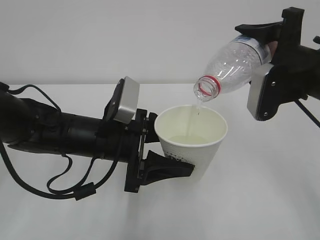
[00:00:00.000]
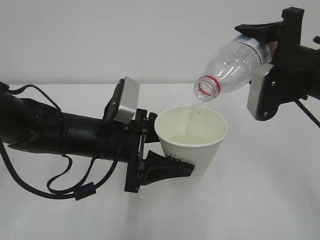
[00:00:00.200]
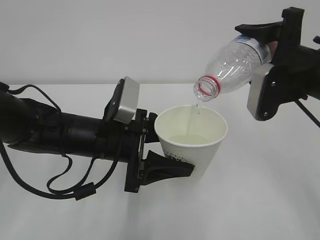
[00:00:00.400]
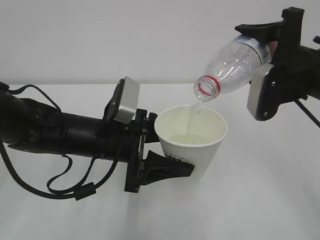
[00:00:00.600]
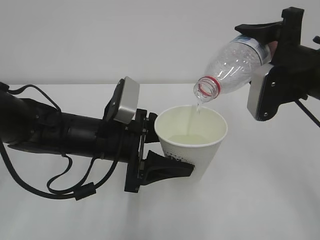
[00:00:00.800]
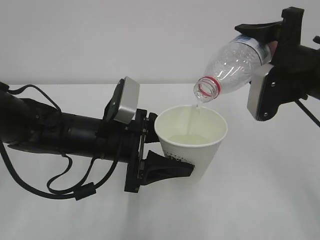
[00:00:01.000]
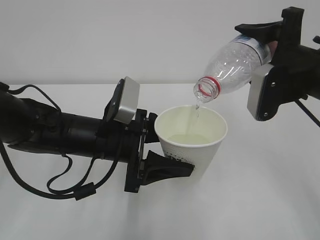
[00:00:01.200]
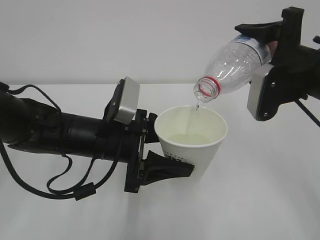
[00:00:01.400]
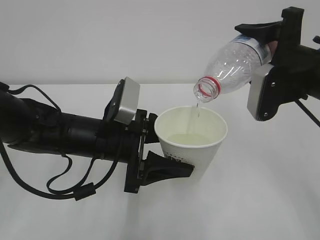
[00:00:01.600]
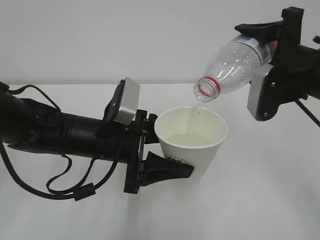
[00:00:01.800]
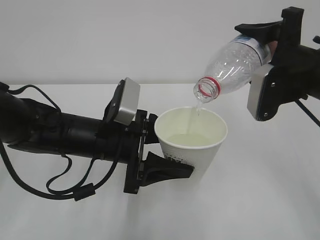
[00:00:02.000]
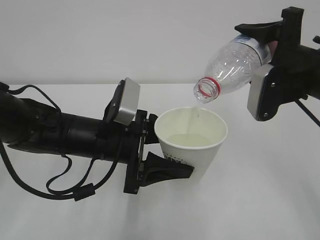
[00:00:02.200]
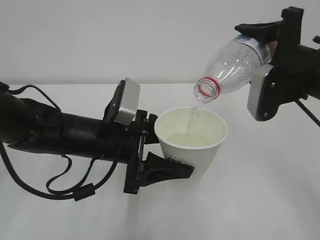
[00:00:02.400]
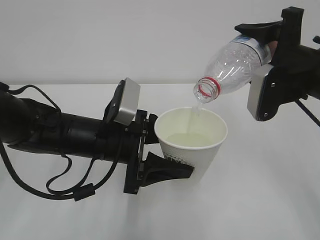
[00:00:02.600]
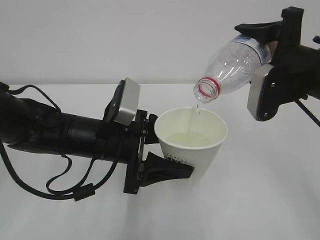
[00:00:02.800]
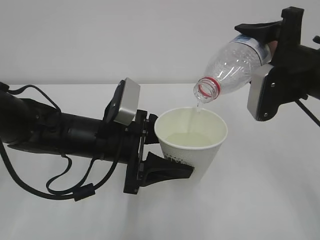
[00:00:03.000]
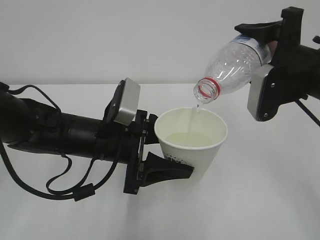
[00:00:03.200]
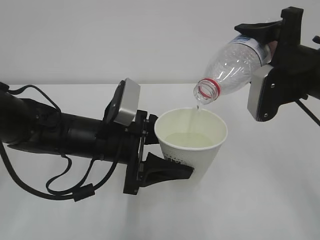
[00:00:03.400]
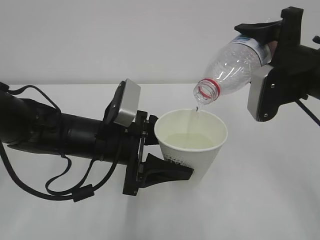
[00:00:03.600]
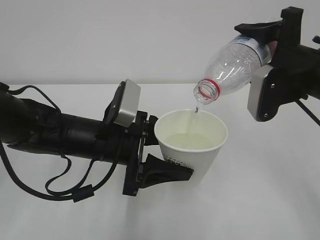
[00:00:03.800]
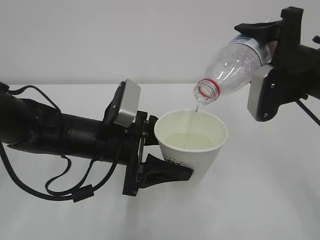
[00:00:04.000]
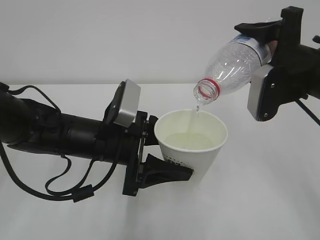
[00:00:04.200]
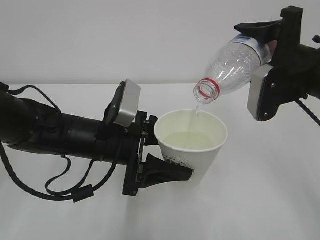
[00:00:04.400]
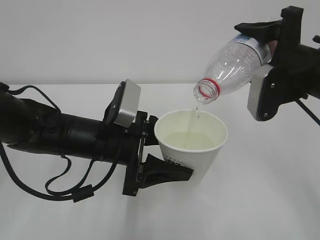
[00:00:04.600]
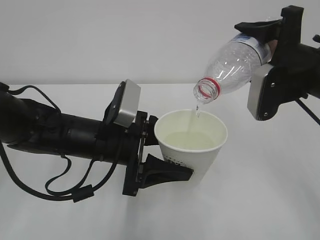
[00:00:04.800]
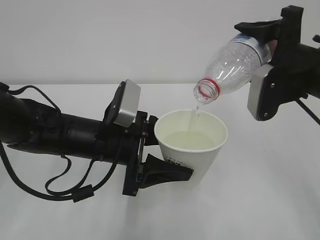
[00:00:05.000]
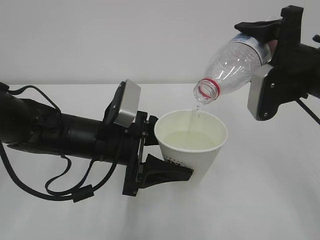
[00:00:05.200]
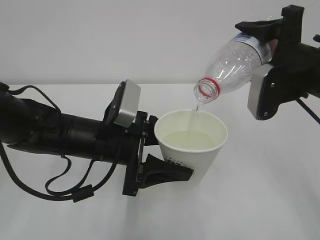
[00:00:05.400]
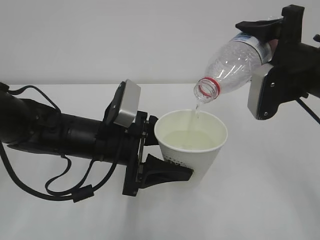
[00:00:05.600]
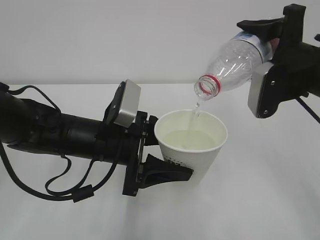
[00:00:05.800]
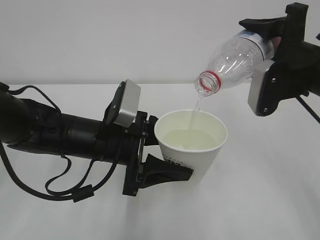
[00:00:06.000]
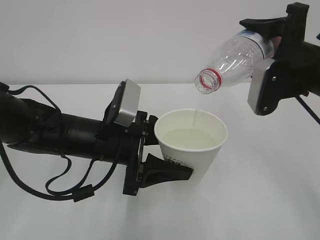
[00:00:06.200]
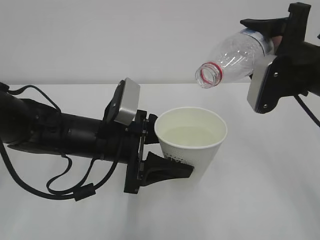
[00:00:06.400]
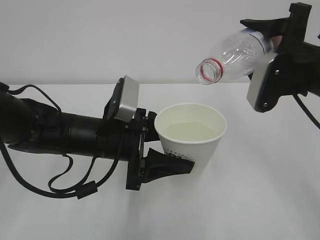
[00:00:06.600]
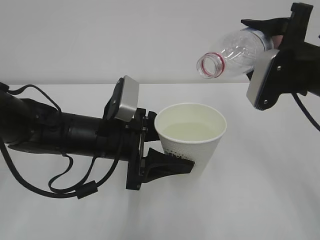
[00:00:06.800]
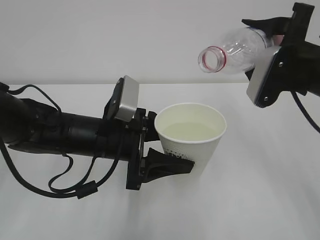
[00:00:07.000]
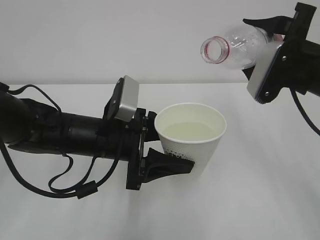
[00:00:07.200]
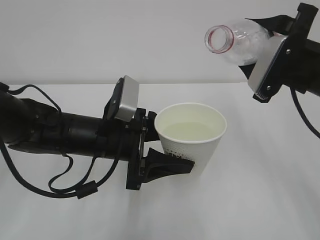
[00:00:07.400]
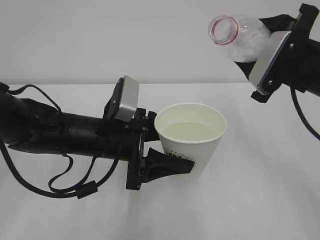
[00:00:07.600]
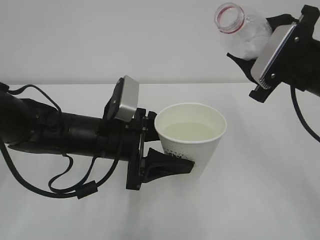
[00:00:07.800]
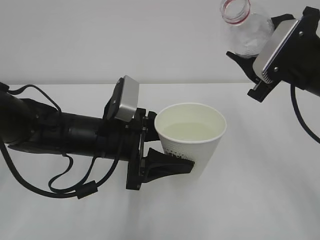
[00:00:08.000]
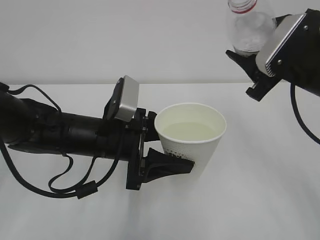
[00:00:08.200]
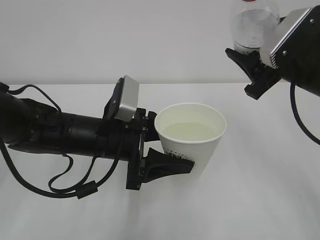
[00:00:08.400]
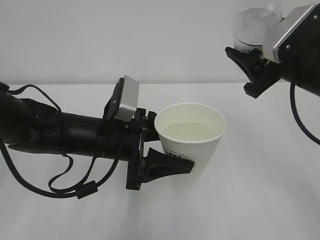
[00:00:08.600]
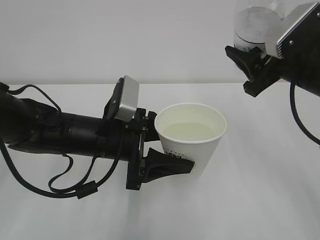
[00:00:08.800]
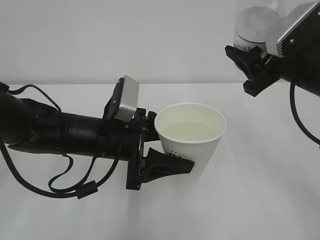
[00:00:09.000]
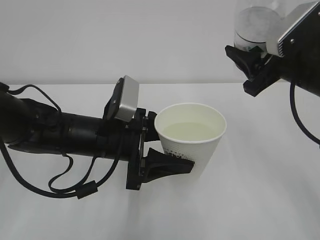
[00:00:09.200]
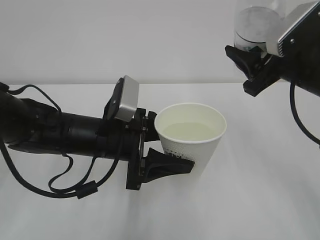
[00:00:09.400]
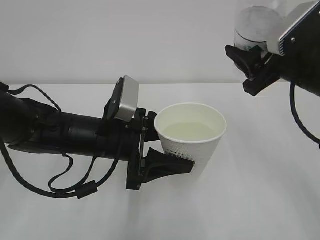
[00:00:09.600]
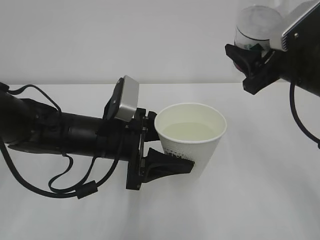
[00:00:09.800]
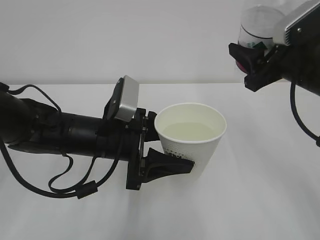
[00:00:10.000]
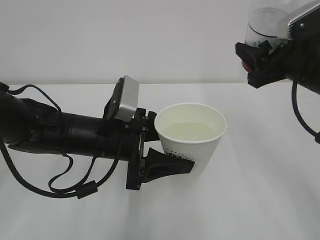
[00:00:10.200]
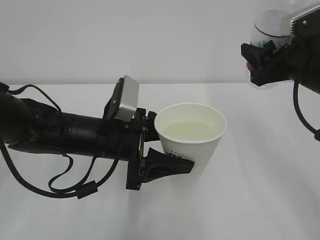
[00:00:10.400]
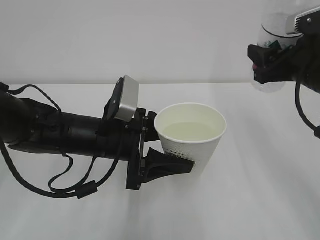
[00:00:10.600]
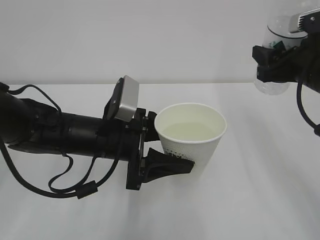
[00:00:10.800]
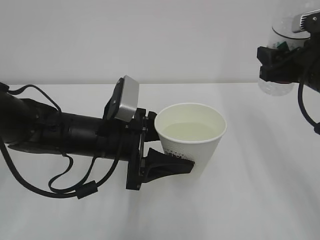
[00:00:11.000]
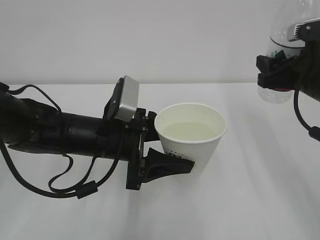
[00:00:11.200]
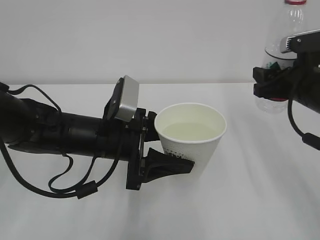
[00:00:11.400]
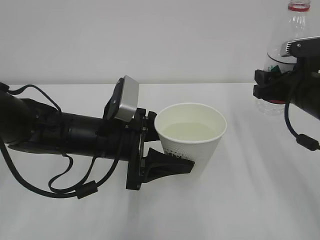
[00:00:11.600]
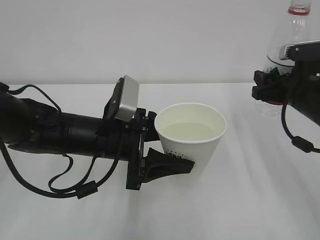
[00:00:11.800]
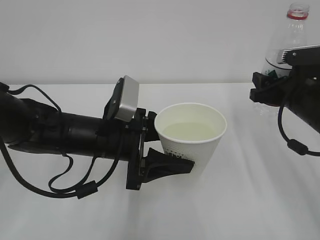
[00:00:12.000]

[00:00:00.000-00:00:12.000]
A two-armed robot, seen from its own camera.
00:00:00.000 to 00:00:06.000: Both grippers stay put.
00:00:10.400 to 00:00:12.000: The right gripper goes roughly 10 cm downward.

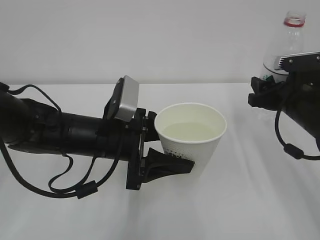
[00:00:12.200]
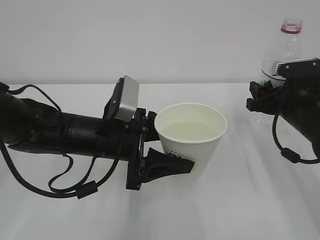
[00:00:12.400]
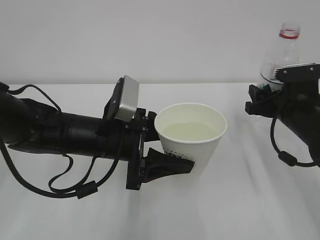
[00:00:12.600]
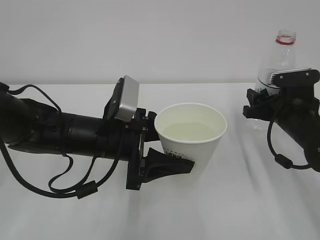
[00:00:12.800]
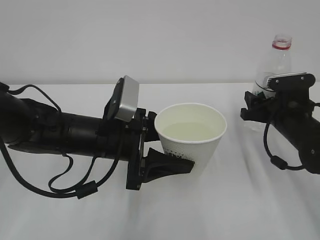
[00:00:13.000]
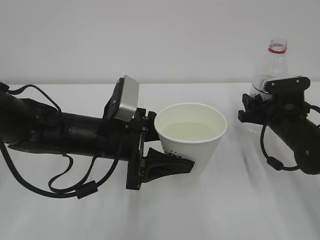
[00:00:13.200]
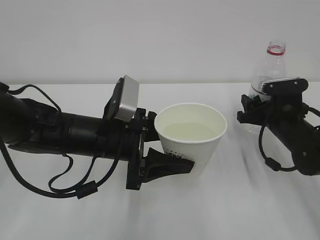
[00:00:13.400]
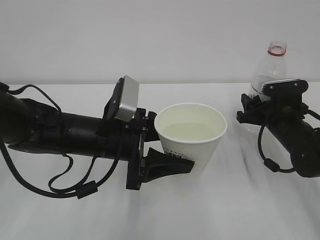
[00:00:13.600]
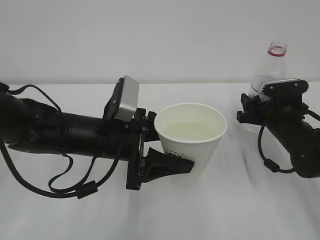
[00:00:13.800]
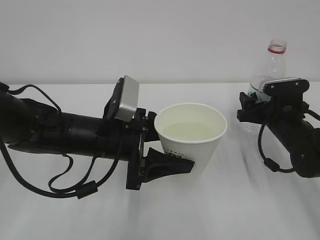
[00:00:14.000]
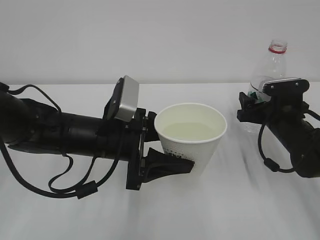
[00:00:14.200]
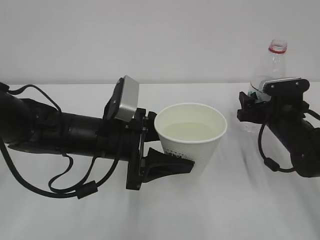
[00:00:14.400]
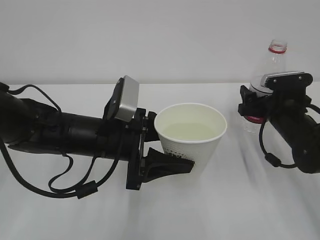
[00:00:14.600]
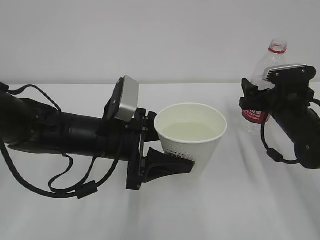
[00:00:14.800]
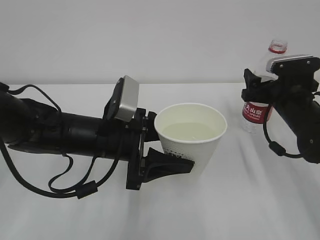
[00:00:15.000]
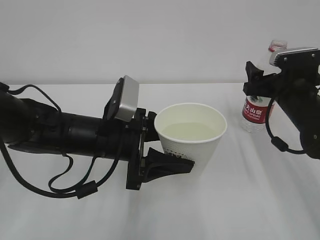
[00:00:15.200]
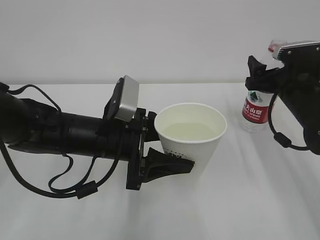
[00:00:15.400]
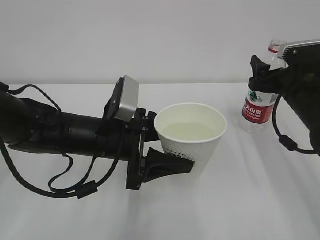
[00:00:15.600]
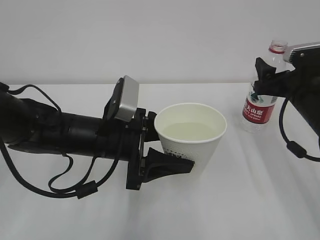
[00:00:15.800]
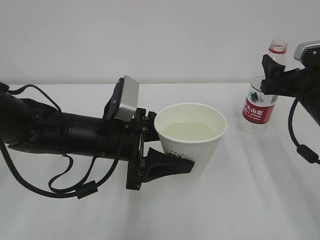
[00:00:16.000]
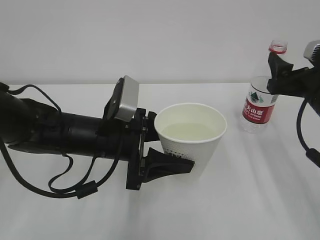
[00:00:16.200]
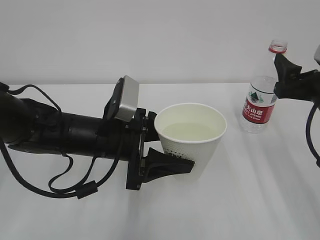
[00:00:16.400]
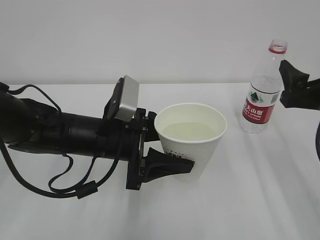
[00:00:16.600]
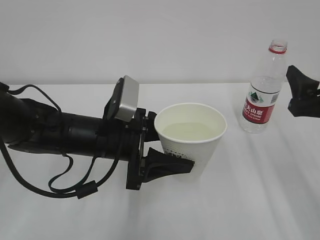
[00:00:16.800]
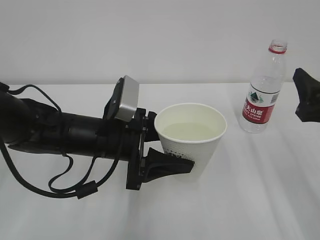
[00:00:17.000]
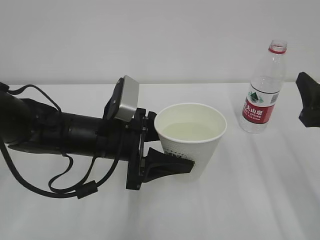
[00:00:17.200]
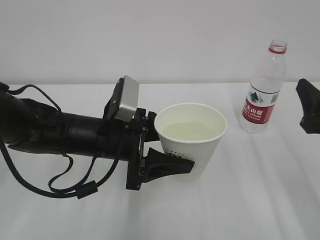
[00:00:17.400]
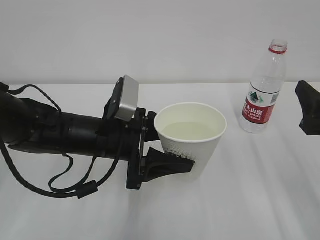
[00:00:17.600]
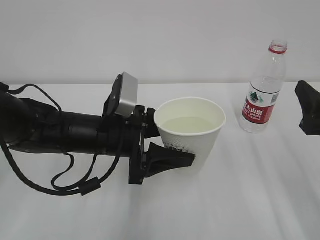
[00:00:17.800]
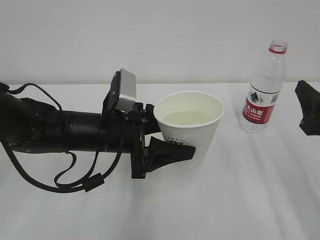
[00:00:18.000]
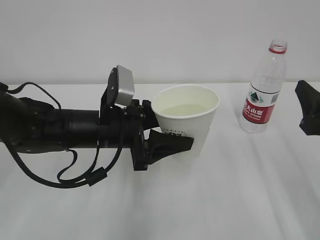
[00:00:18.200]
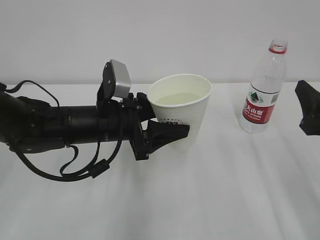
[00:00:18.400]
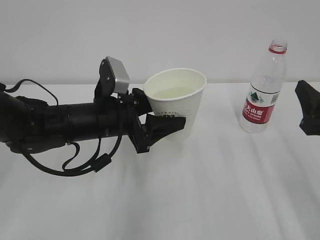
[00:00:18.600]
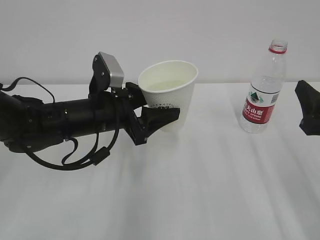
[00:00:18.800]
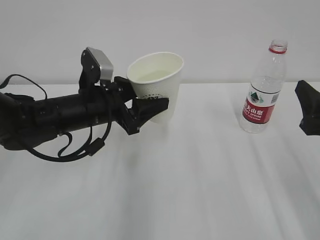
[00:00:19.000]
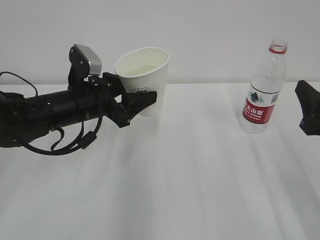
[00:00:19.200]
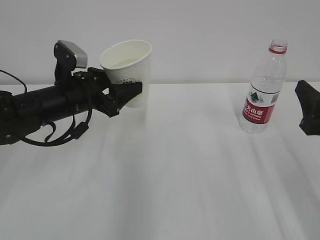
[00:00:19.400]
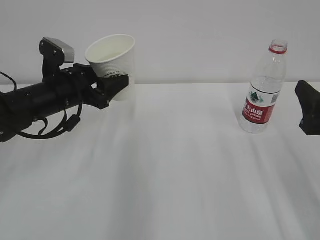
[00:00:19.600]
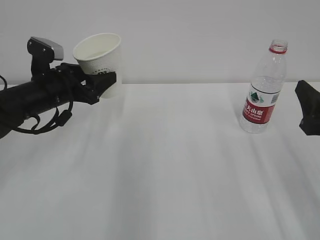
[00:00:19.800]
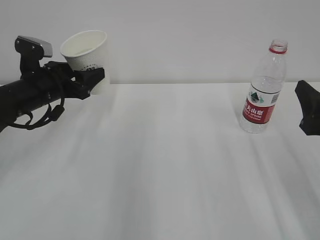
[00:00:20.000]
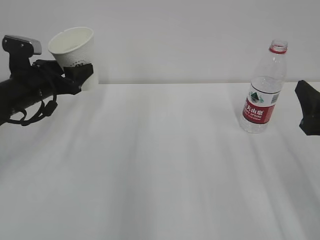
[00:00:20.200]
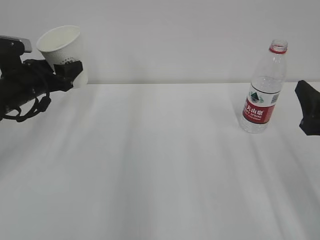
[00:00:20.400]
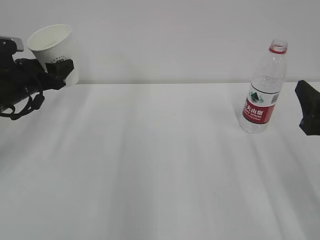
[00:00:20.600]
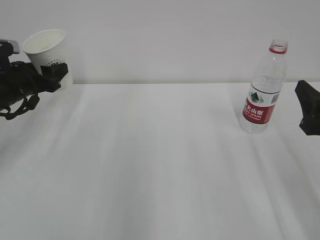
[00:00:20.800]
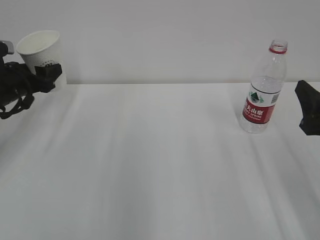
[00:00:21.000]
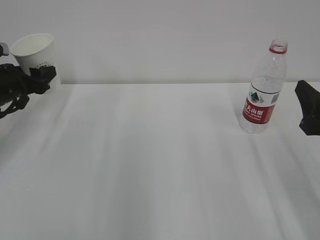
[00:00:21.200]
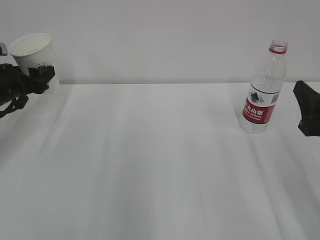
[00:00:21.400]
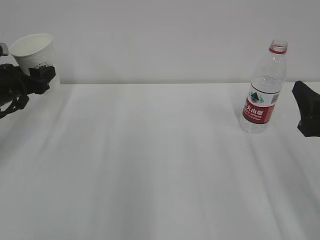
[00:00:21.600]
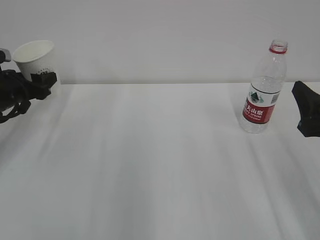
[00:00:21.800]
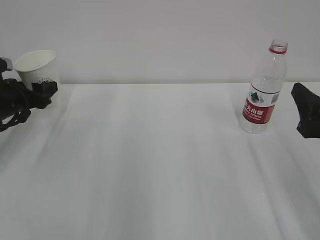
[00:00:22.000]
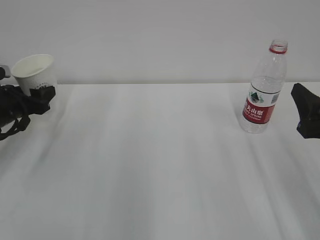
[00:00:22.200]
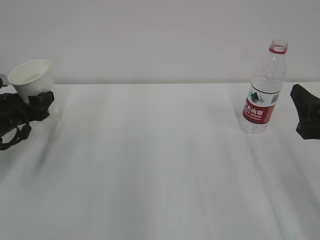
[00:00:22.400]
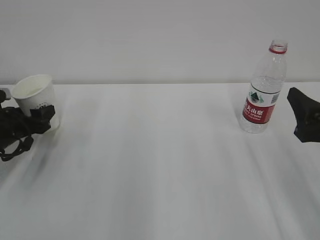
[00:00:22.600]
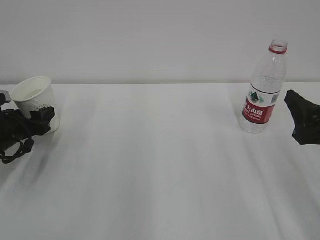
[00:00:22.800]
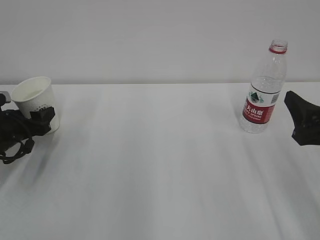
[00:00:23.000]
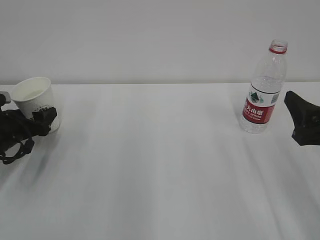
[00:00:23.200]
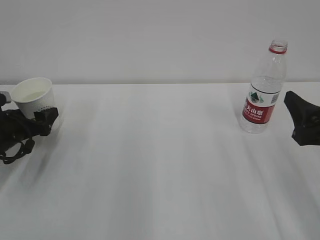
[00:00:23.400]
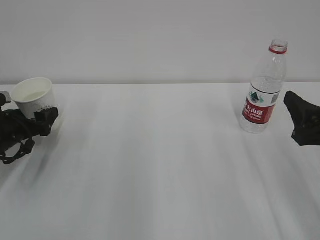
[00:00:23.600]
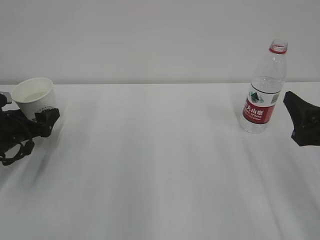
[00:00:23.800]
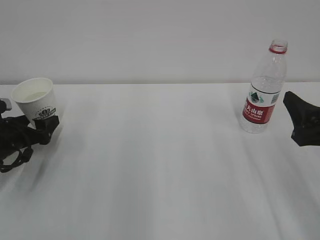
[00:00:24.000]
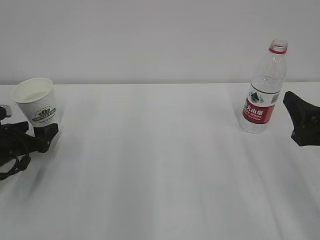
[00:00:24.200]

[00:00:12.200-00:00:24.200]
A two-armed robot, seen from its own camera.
00:00:12.200 to 00:00:13.800: The right gripper shifts roughly 5 cm downward.
00:00:13.800 to 00:00:15.200: The right gripper moves upward, about 5 cm, and opens up.
00:00:15.200 to 00:00:16.600: The right gripper goes roughly 10 cm backward and upward.
00:00:16.600 to 00:00:18.200: The right gripper moves backward, roughly 5 cm.
00:00:18.200 to 00:00:19.800: The left gripper moves to the left and forward, approximately 15 cm.
00:00:19.800 to 00:00:21.200: The left gripper is displaced to the left by some 10 cm.
00:00:21.200 to 00:00:22.600: The left gripper shifts about 5 cm downward.
00:00:22.600 to 00:00:24.200: The left gripper opens its fingers.
